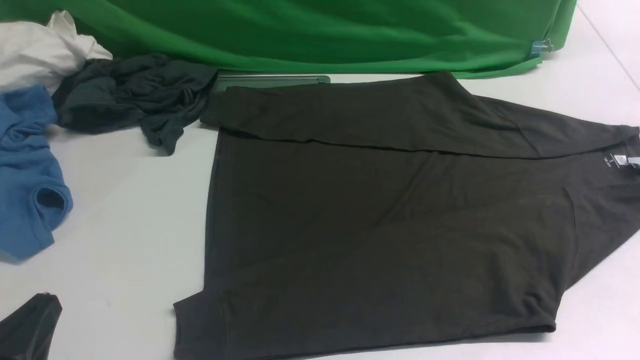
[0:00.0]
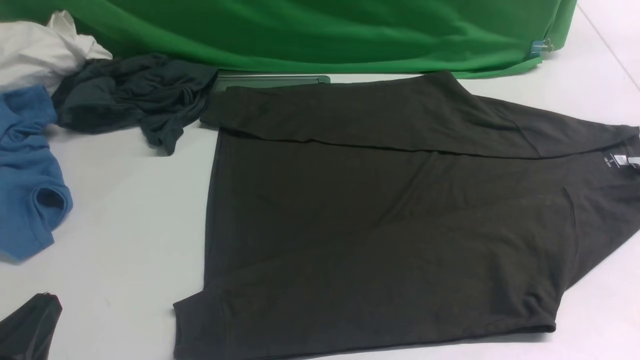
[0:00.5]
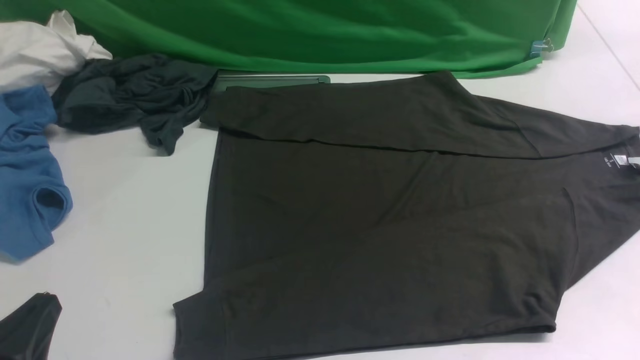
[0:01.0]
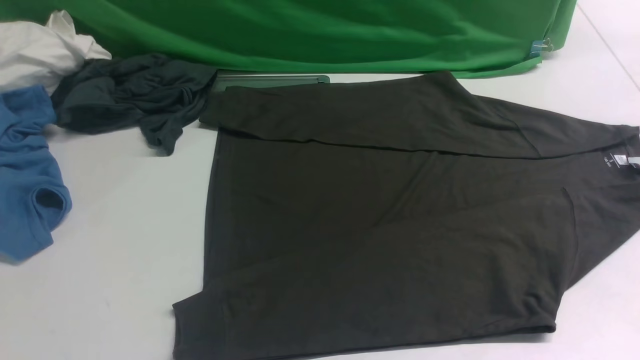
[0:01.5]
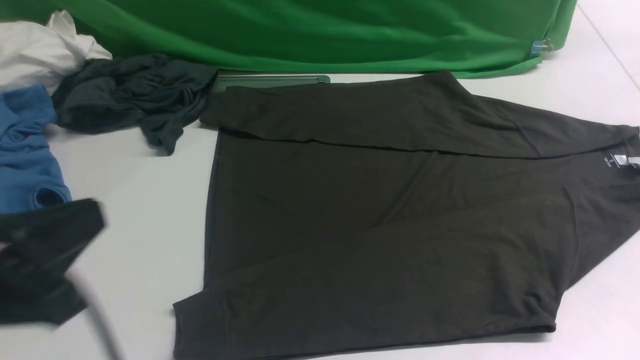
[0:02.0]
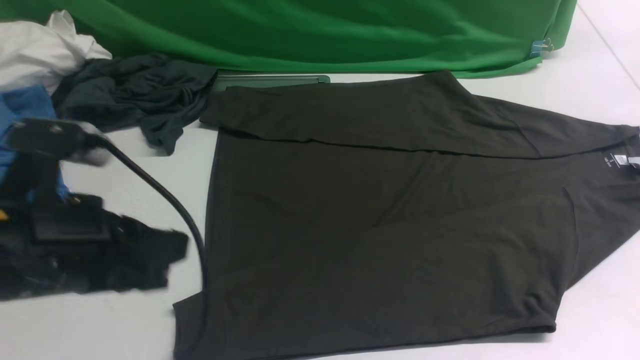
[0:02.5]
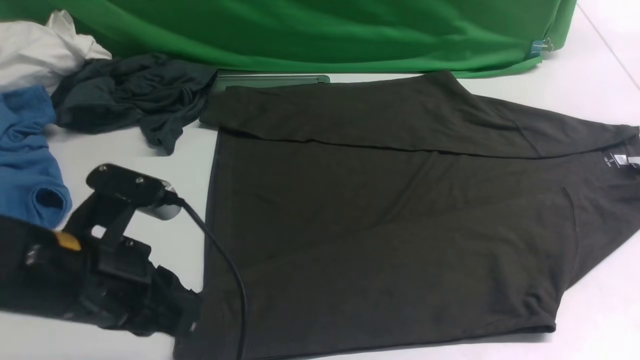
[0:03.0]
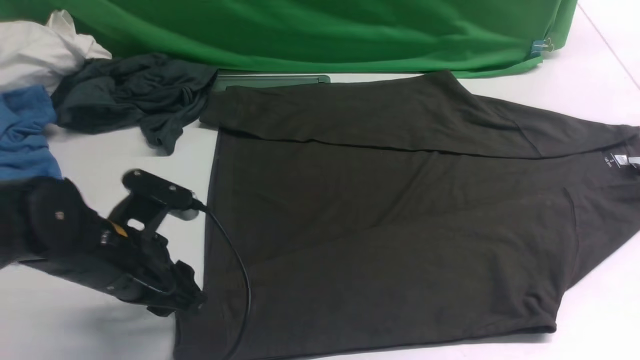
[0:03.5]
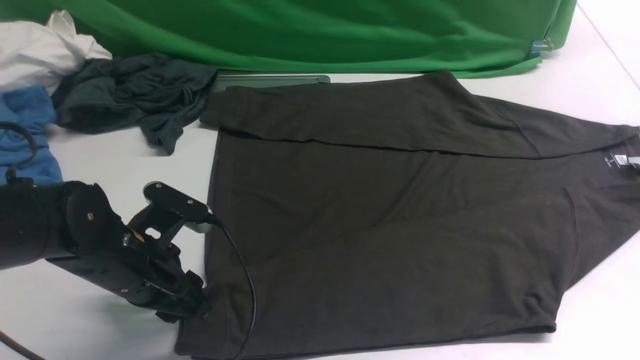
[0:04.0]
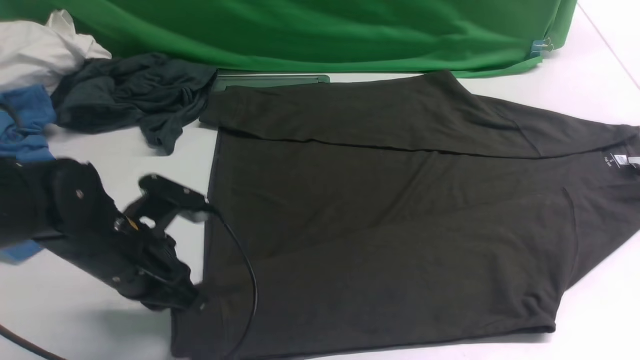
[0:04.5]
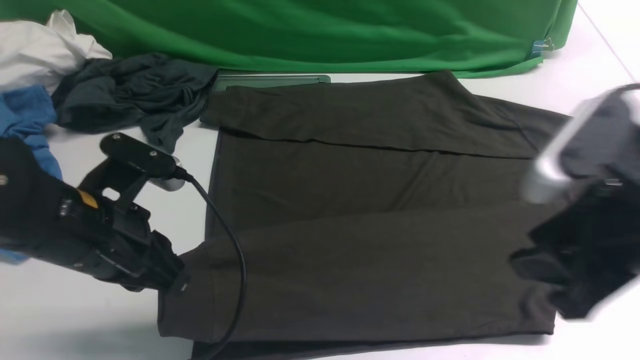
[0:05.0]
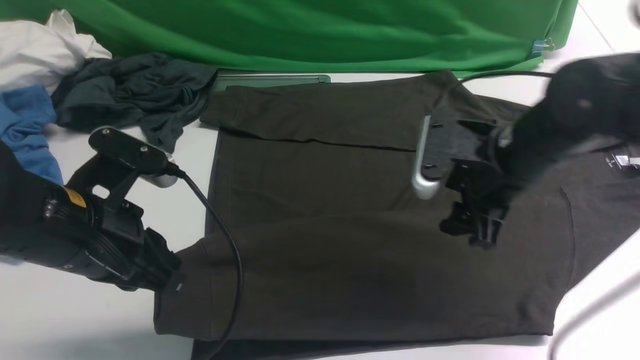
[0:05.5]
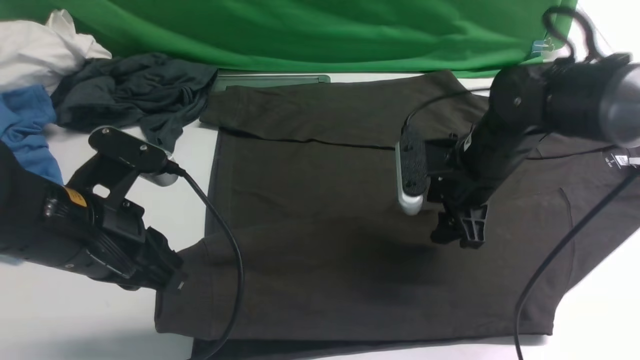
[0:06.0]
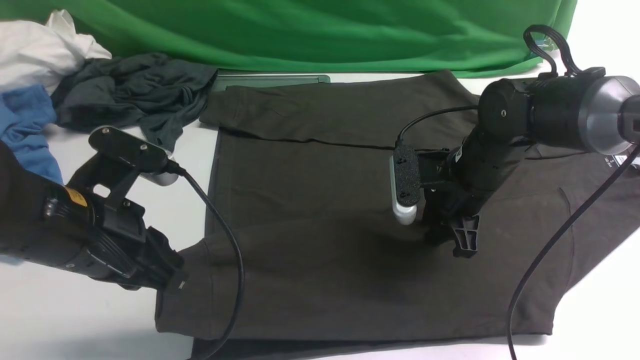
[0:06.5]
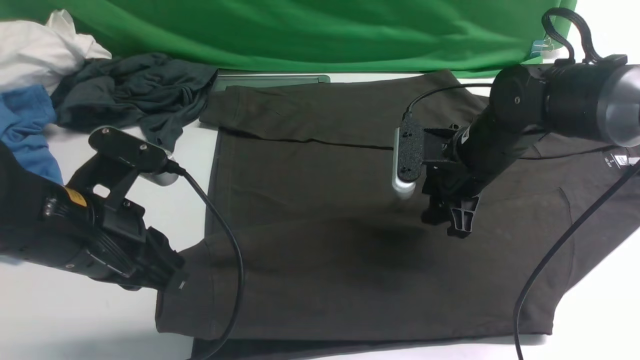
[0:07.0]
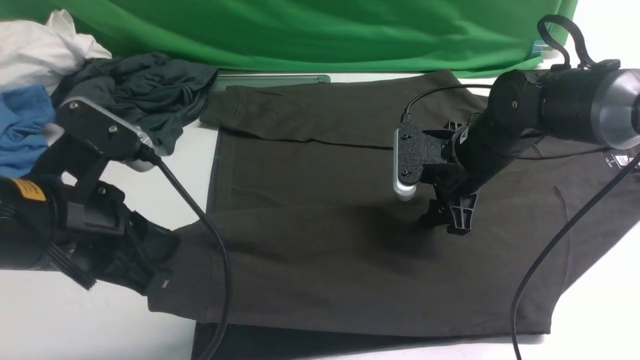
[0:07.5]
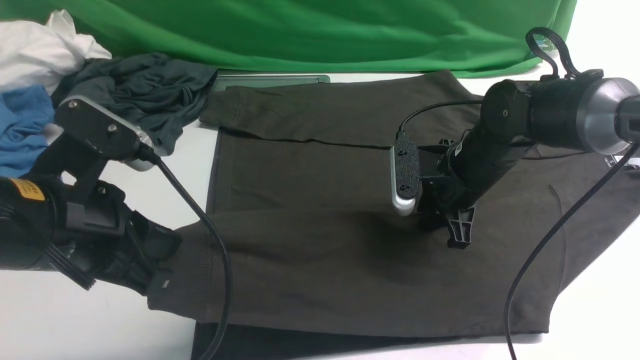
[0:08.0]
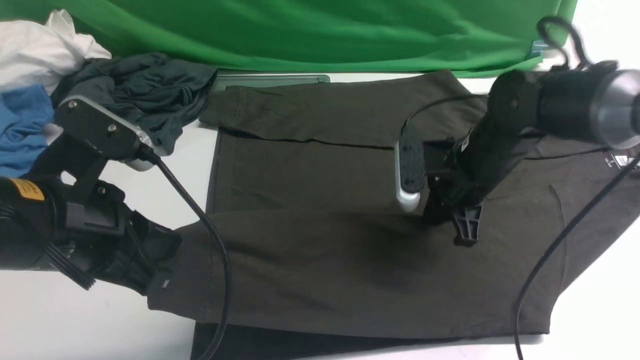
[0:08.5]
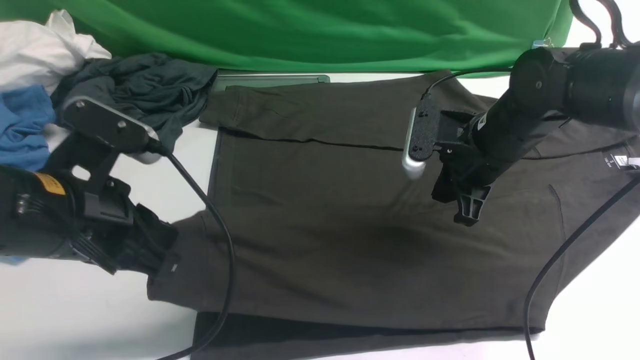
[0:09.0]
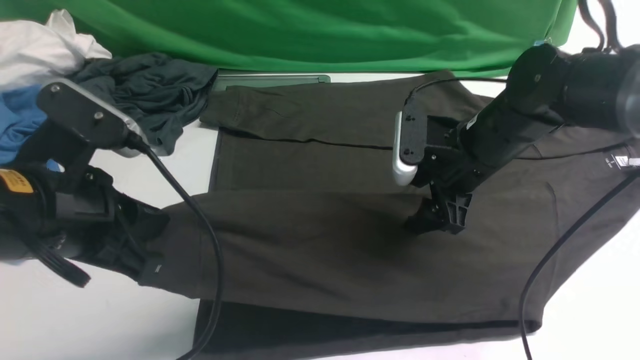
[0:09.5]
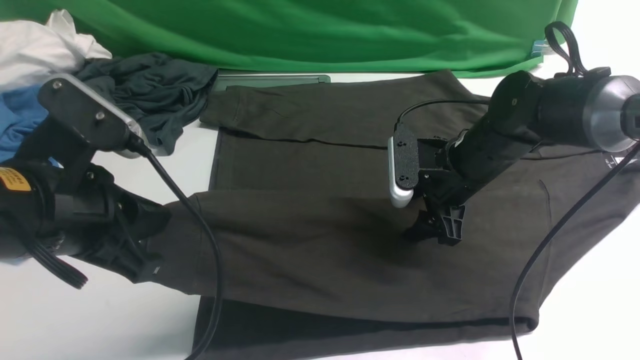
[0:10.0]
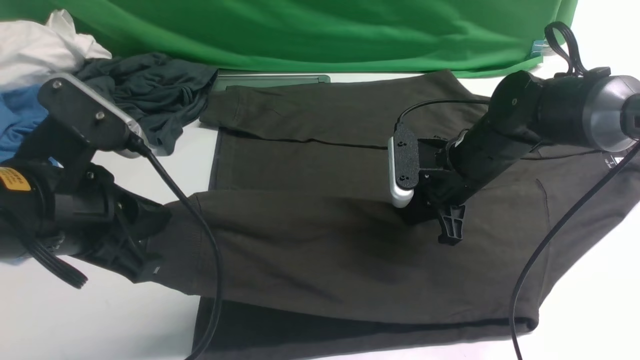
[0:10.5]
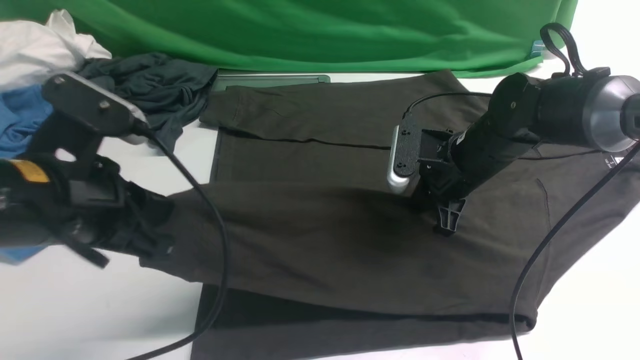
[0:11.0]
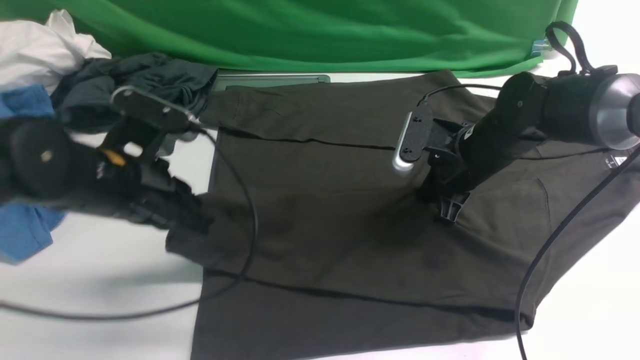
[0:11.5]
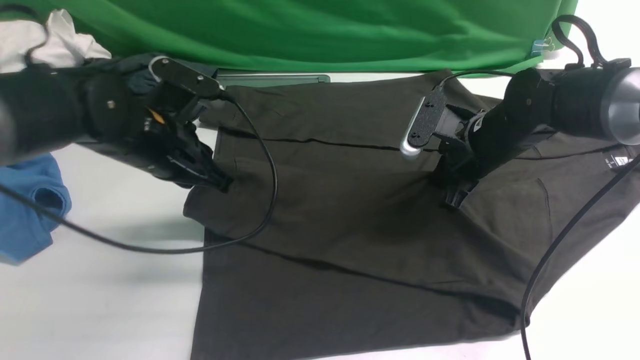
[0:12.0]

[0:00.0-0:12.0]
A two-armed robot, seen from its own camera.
Step, 0:00.0 to 0:04.5: use the left arm to clamp the cuff closest to it.
0:00.0 to 0:02.0: The left gripper goes about 10 cm upward.
0:02.0 to 0:04.0: The left gripper travels downward and forward by roughly 20 cm, and opens up.
0:04.0 to 0:06.0: The right gripper heads forward and downward, covering some 35 cm, and opens up. The left gripper travels upward by some 10 cm, and closes up.
0:06.0 to 0:08.0: The right gripper closes up.
0:08.0 to 0:10.0: The right gripper opens up.
0:10.0 to 0:12.0: The right gripper closes its fingers. Meanwhile the left gripper shifts about 15 cm forward and downward.

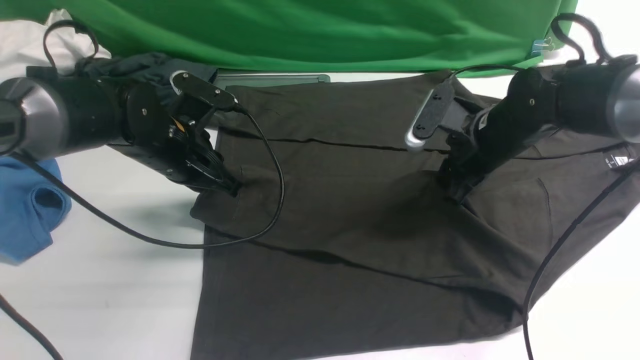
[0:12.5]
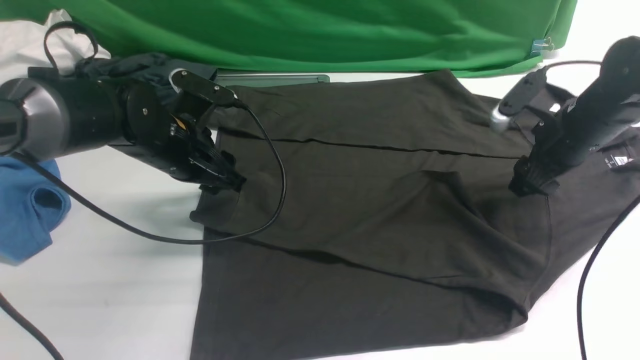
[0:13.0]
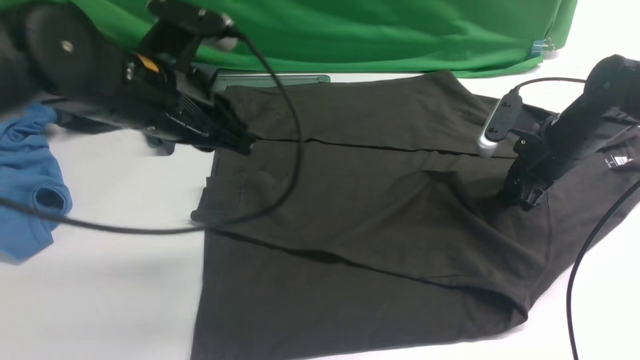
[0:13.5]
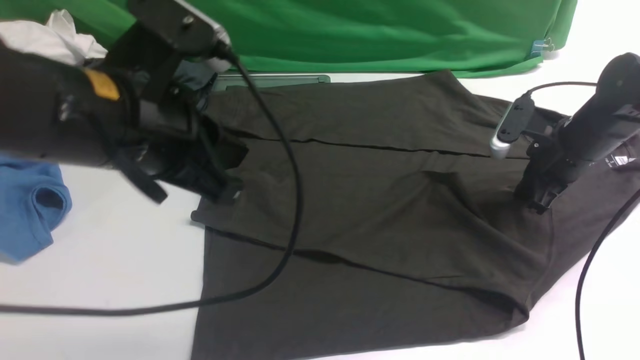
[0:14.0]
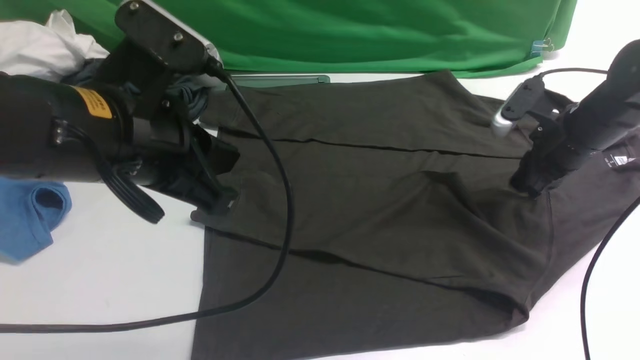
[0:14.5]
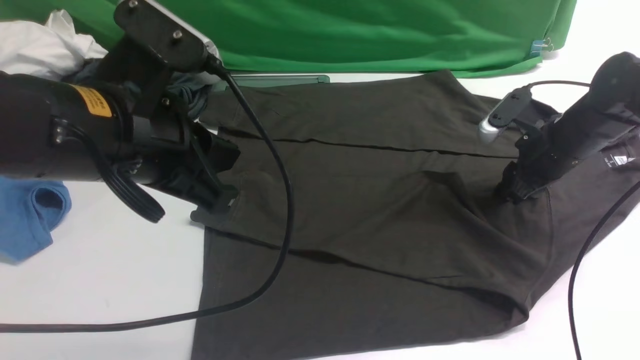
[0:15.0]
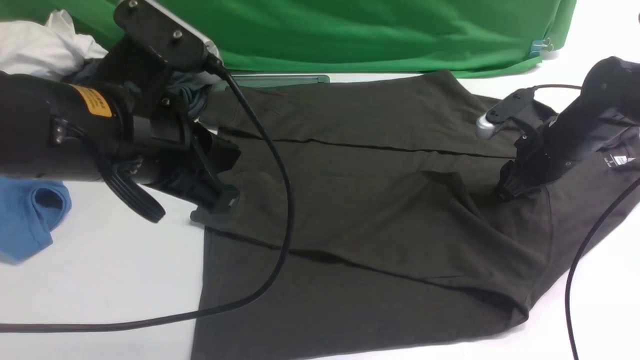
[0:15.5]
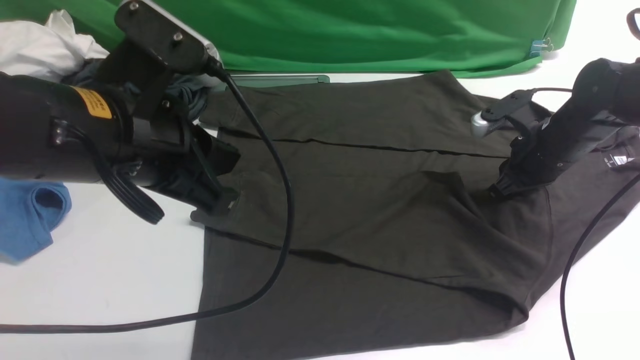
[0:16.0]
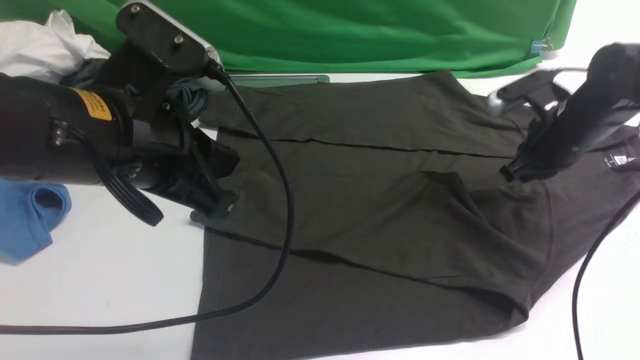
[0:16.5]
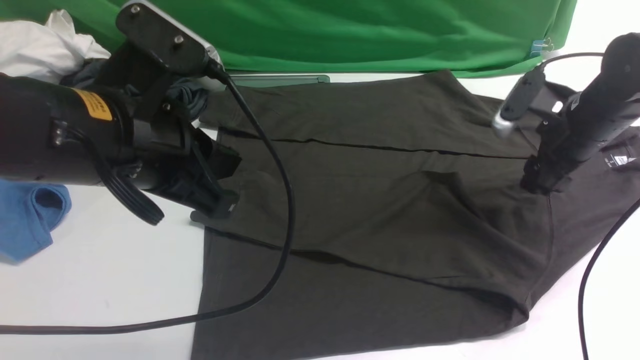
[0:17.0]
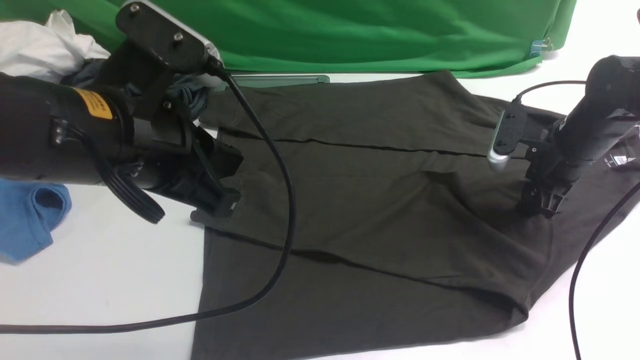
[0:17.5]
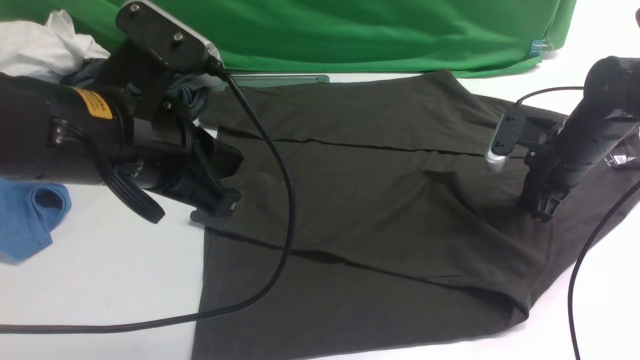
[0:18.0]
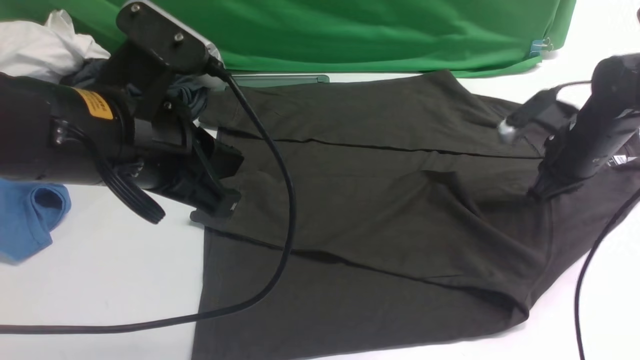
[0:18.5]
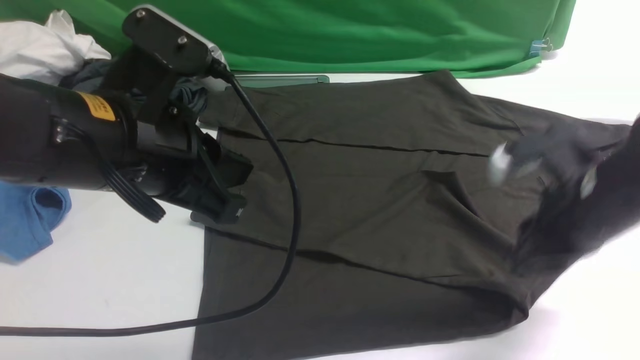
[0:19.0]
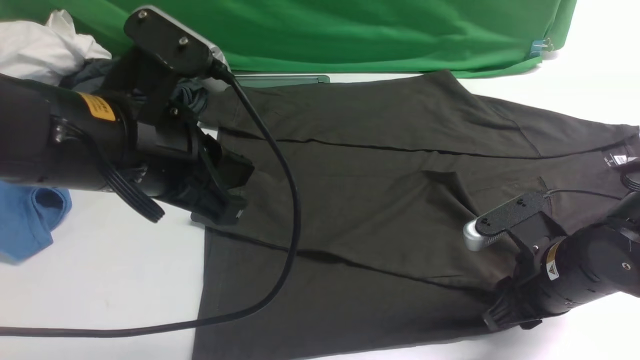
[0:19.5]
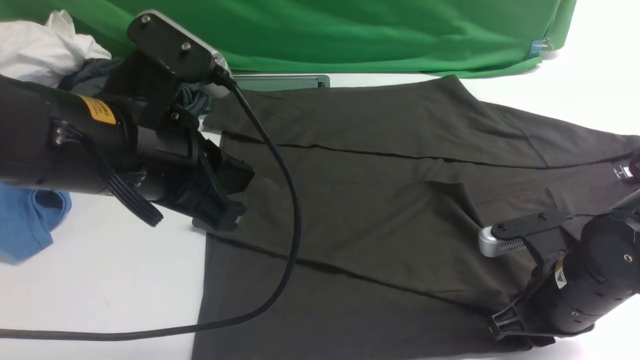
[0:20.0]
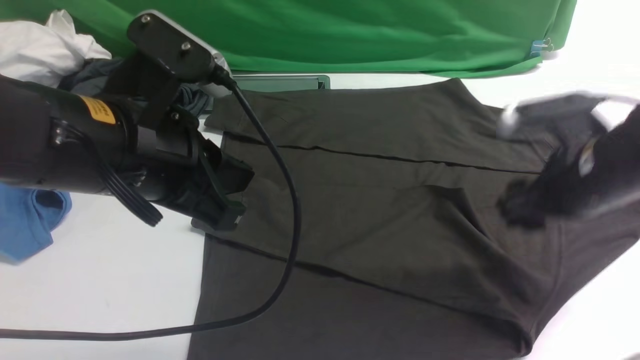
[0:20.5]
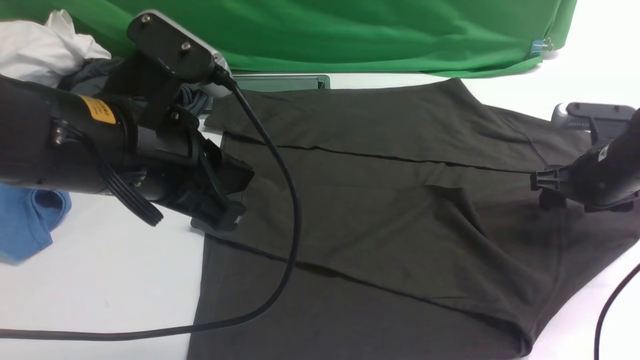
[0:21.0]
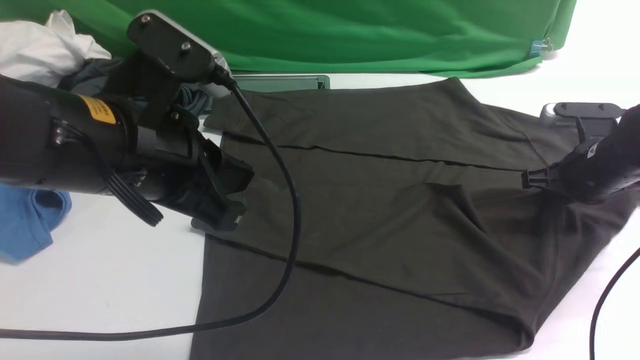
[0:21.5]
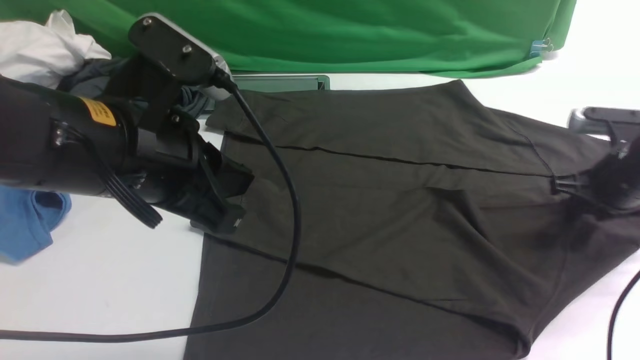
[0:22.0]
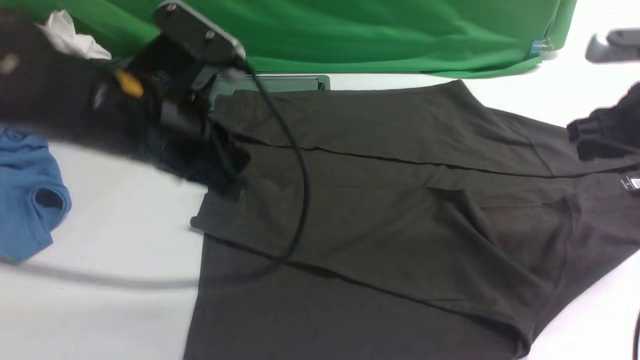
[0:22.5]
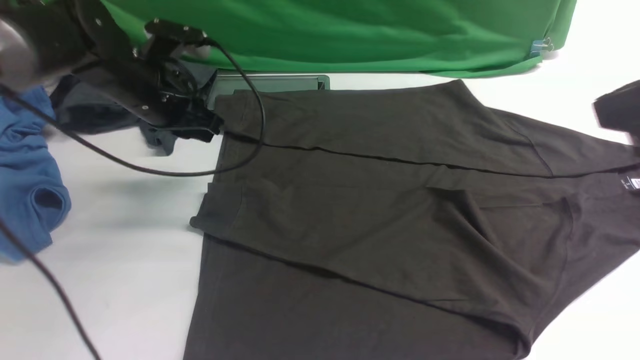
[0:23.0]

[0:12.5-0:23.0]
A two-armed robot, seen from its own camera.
0:12.5 to 0:14.5: The left gripper shifts about 20 cm backward and upward, and opens and closes again. The right gripper heads to the right, covering about 10 cm, and closes and opens again.
0:14.5 to 0:16.5: The right gripper closes.
0:16.5 to 0:19.0: The right gripper travels backward by approximately 15 cm, and opens its fingers.
0:19.0 to 0:21.0: The right gripper goes roughly 10 cm forward and to the right, and opens its fingers.
0:21.0 to 0:23.0: The right gripper travels upward and backward by roughly 30 cm, and closes up. Meanwhile the left gripper travels forward and downward by roughly 25 cm, and opens.
